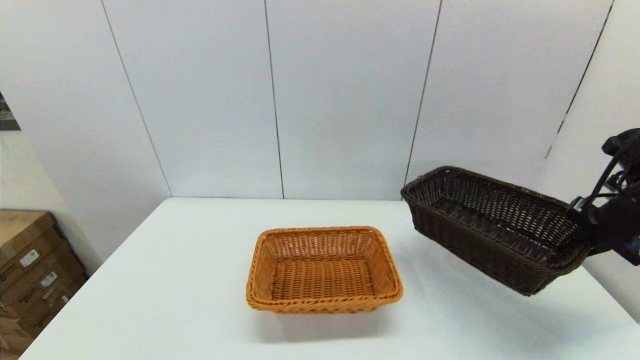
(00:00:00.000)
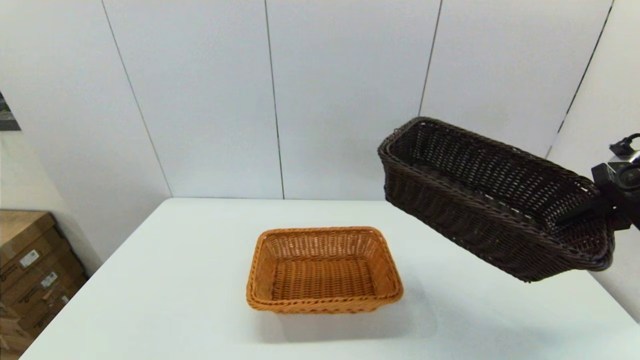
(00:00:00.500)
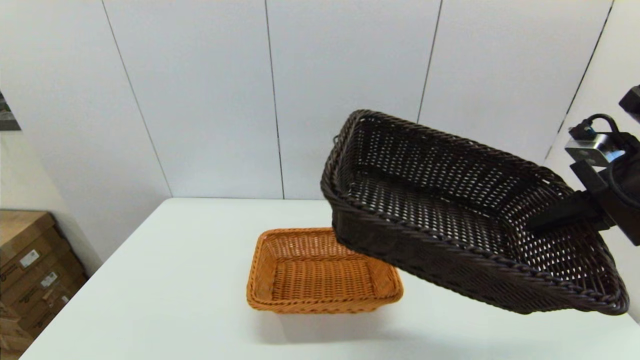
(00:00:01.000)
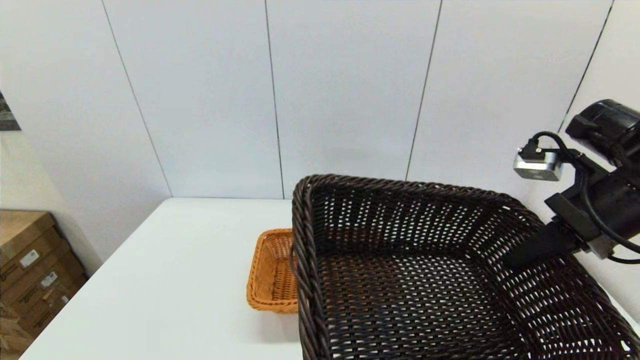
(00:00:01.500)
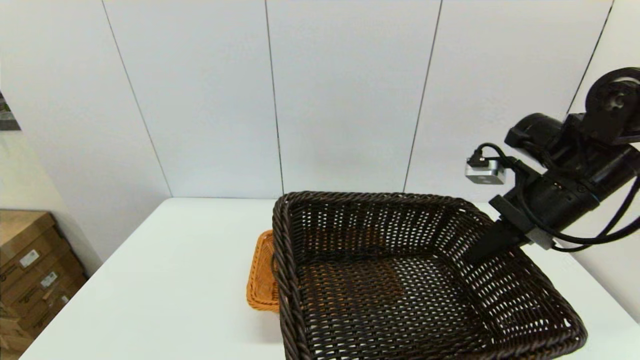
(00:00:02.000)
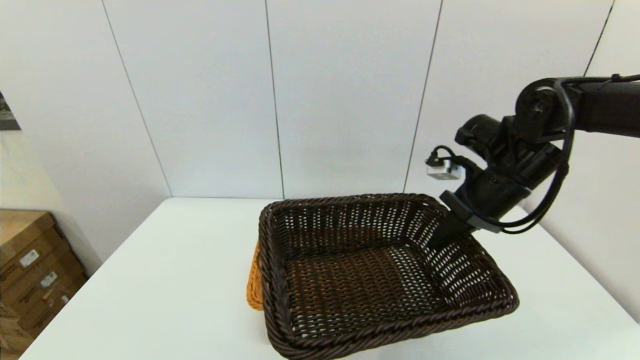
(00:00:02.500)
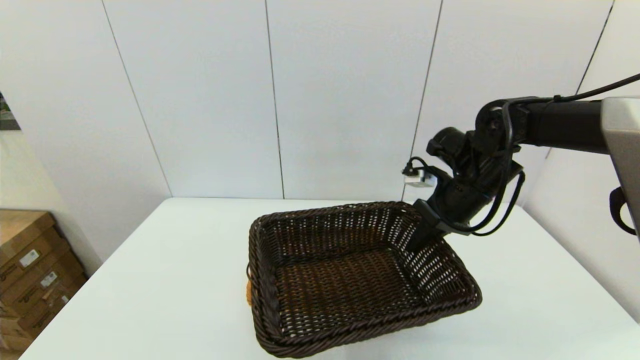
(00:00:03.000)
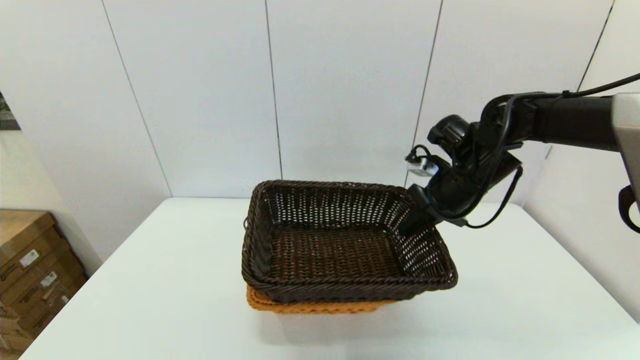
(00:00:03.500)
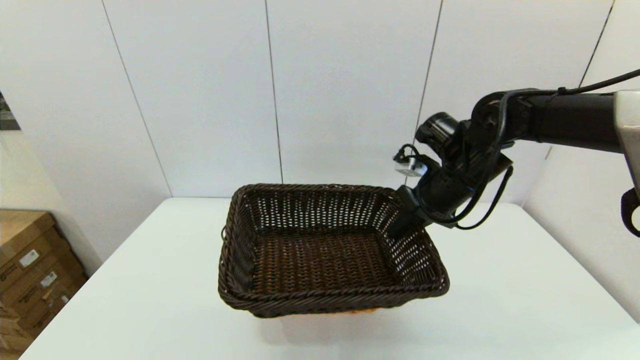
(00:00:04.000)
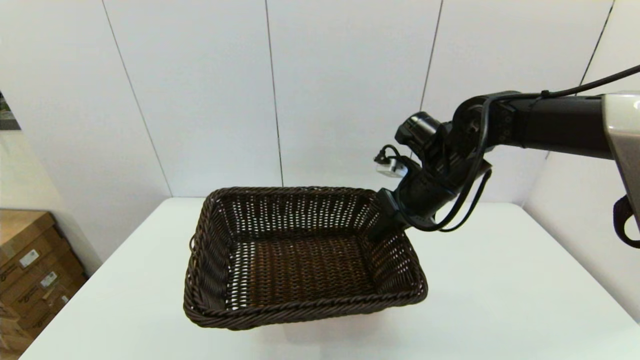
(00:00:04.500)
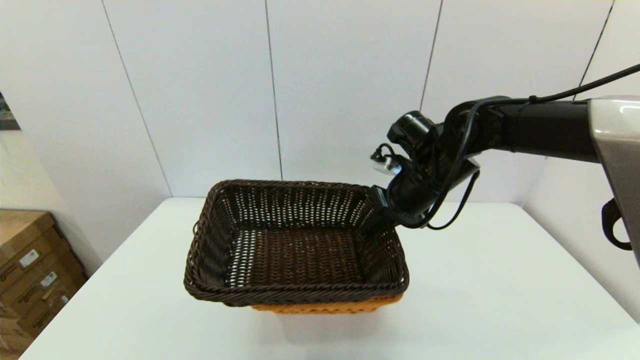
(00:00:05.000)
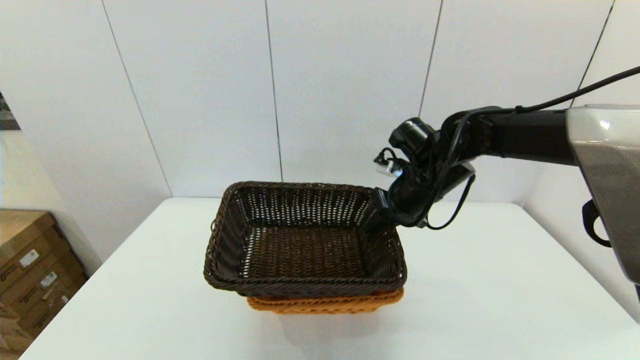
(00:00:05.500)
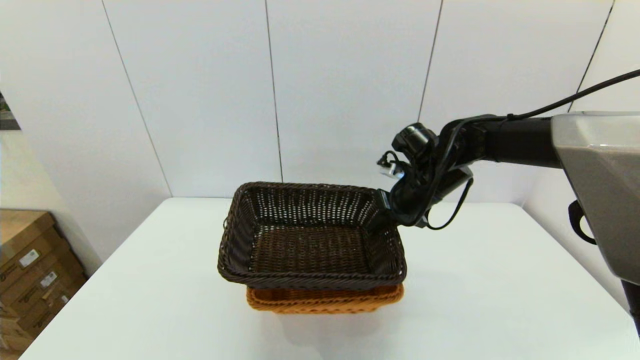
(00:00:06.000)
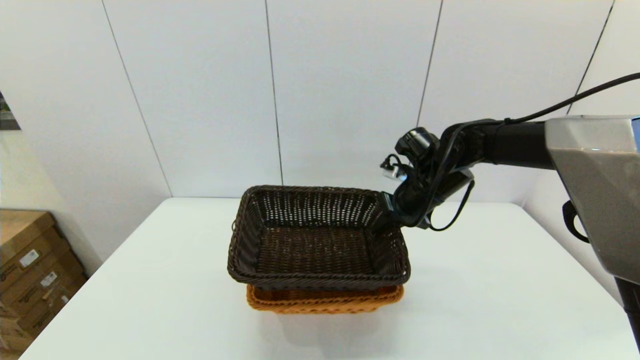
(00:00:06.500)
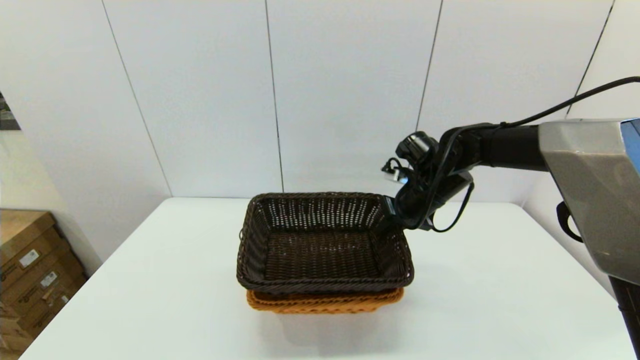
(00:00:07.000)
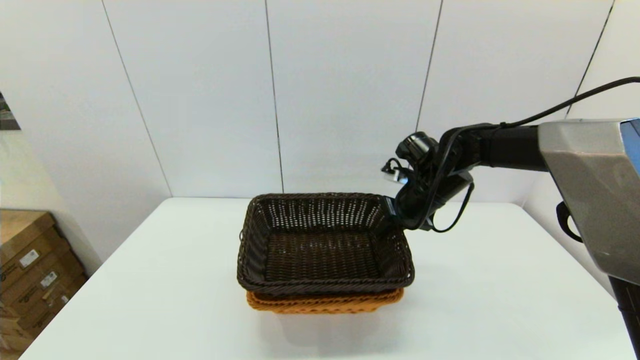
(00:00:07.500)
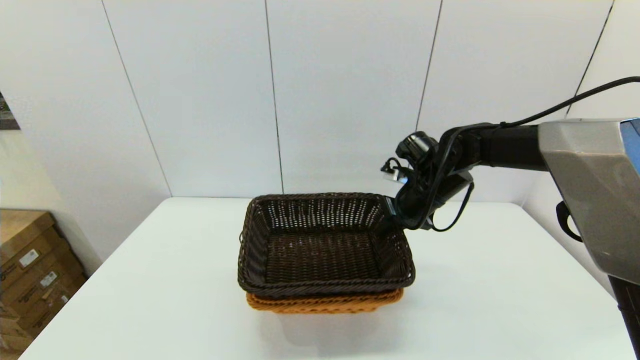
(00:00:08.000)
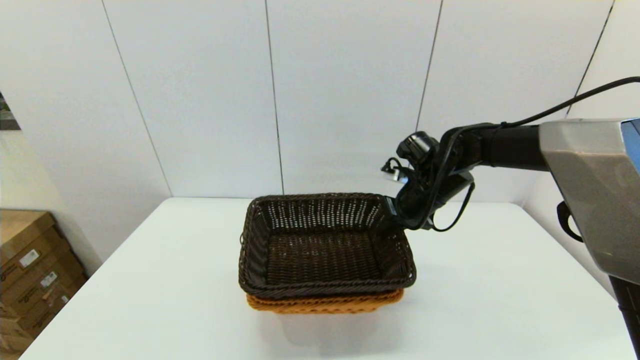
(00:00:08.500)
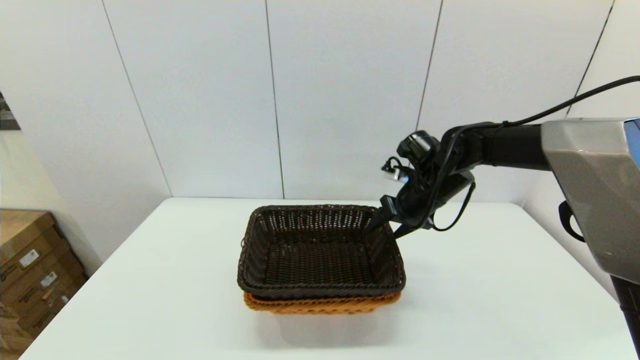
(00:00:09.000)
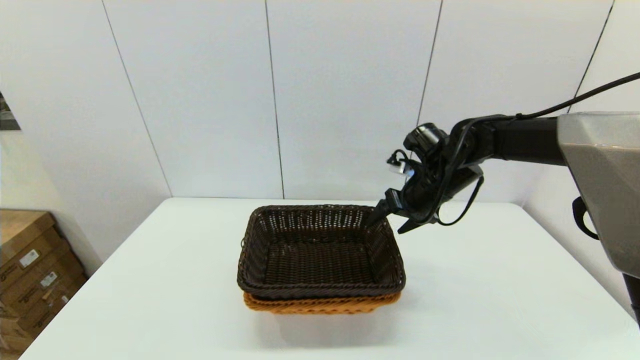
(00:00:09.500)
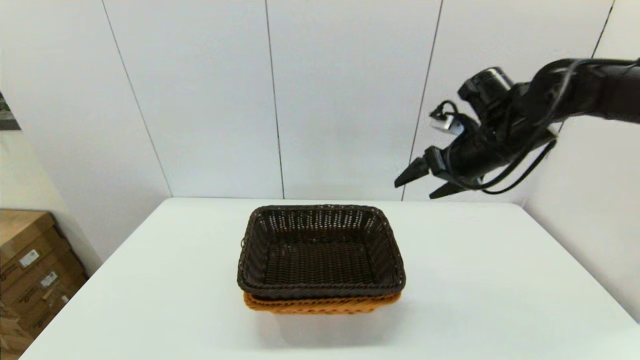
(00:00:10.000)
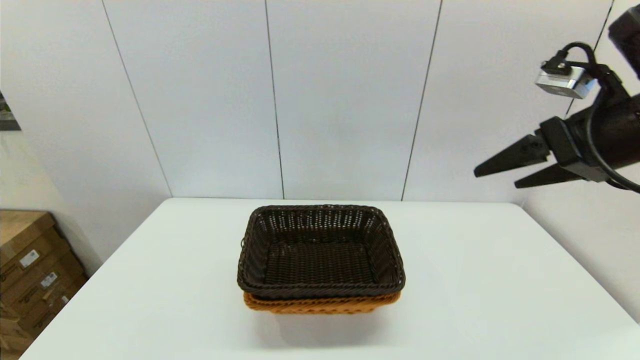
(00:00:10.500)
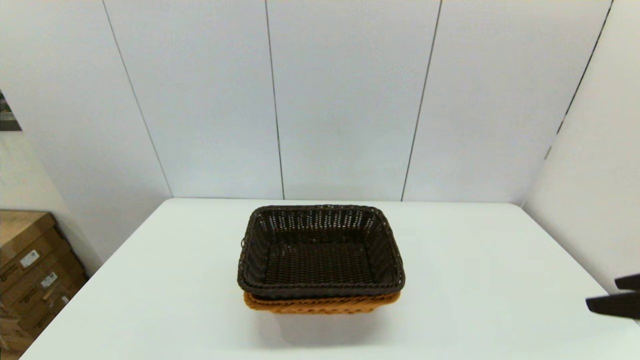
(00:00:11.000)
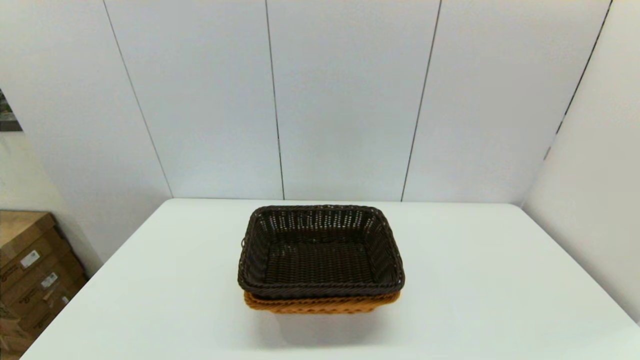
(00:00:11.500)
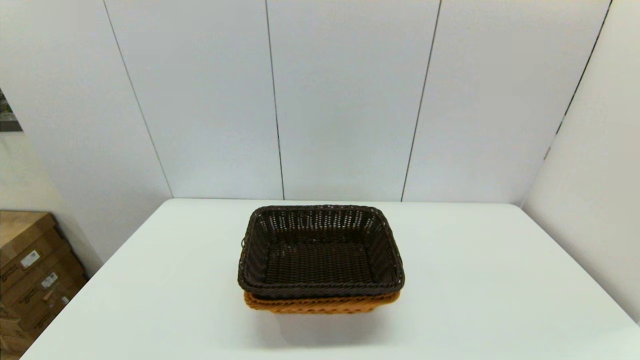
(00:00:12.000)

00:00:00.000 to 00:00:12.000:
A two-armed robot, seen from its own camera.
Task of the whole recording: stack a basket on top of another basket.
Step, 00:00:00.000 to 00:00:10.000: Place the dark basket into the light color basket with the right gripper.
00:00:00.000 to 00:00:02.000: The right gripper travels to the left by approximately 15 cm.
00:00:02.000 to 00:00:04.000: The right gripper goes some 10 cm to the left and forward.
00:00:04.000 to 00:00:06.000: The right gripper moves roughly 5 cm.
00:00:06.000 to 00:00:08.000: There are only small adjustments of the grippers.
00:00:08.000 to 00:00:10.000: The right gripper goes about 15 cm upward and to the right, and opens up.
00:00:10.000 to 00:00:12.000: The right gripper goes some 40 cm backward.

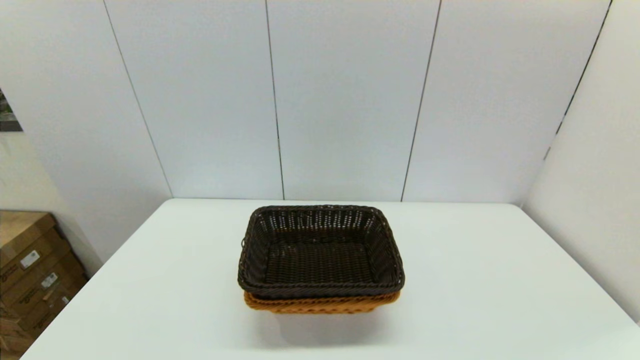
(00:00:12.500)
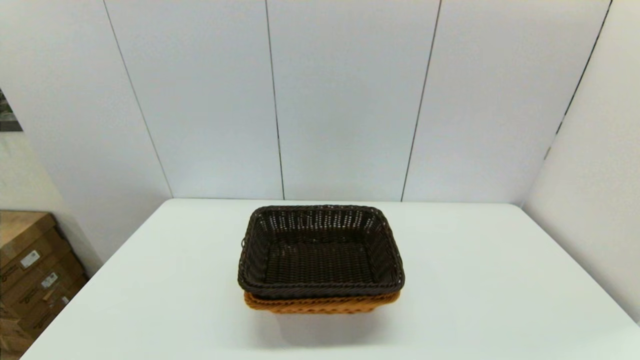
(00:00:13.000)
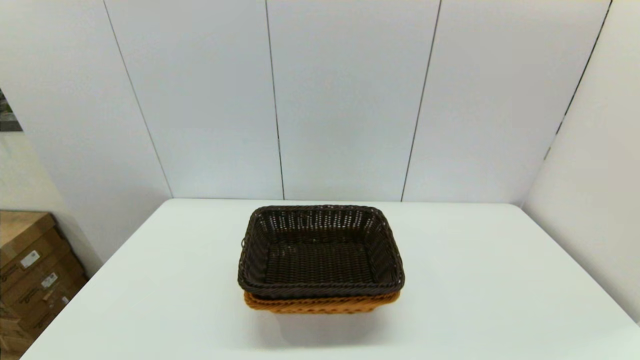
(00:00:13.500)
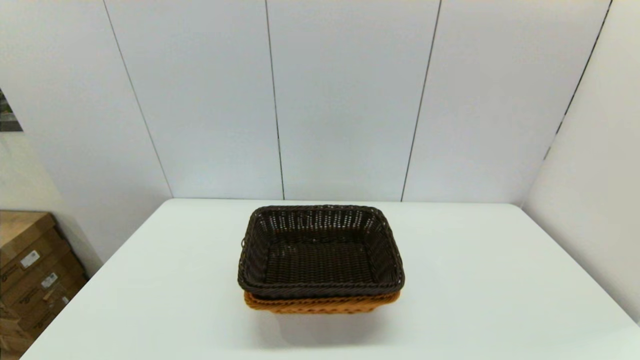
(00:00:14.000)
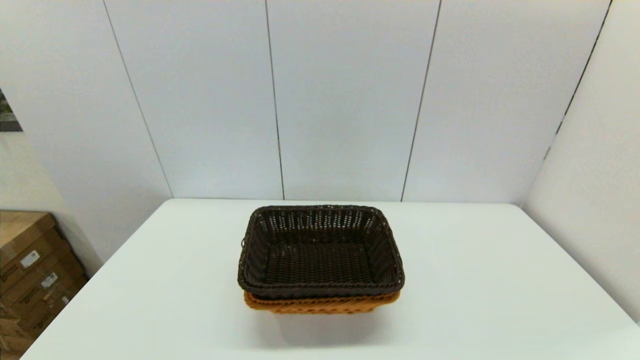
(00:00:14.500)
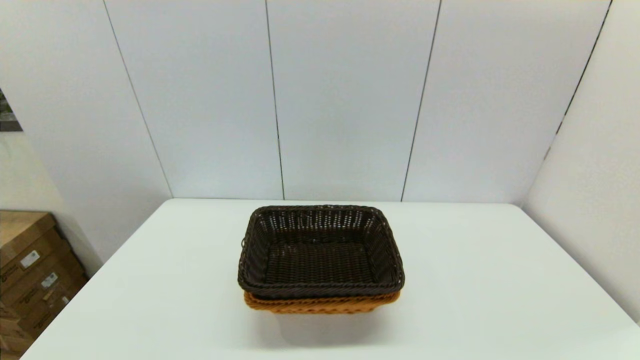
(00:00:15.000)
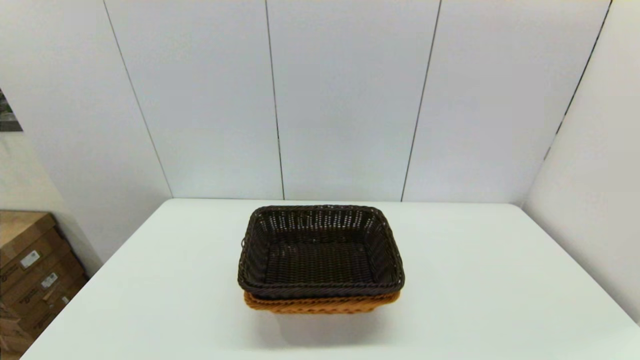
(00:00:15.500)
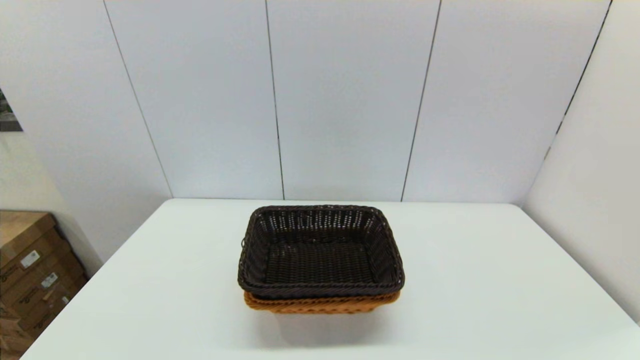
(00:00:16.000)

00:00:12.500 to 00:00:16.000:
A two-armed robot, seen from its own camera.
Task of the whole recording: stack a basket on top of another basket.
00:00:14.500 to 00:00:16.000: The two grippers keep their place.

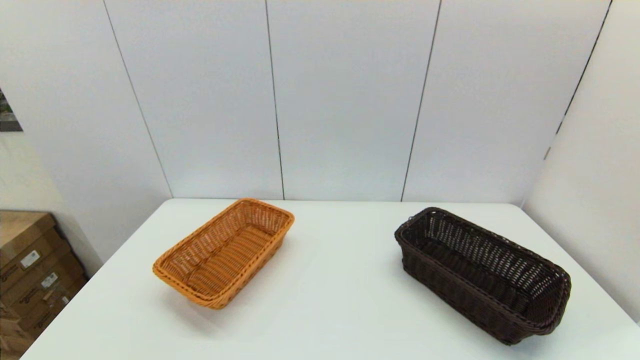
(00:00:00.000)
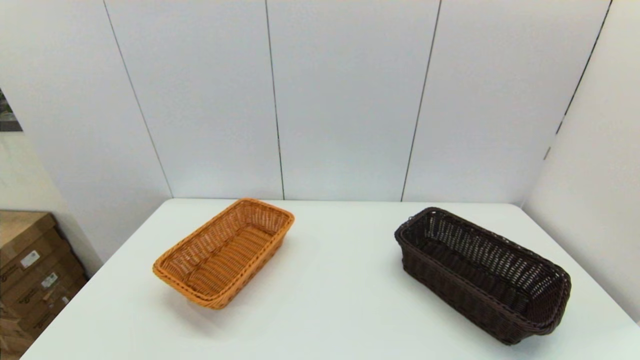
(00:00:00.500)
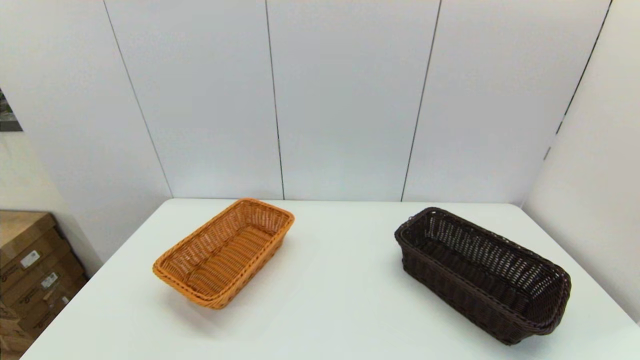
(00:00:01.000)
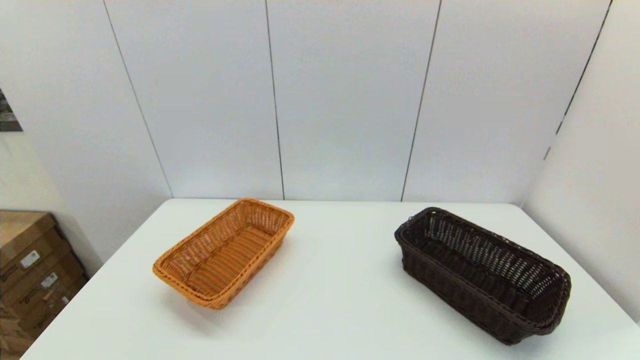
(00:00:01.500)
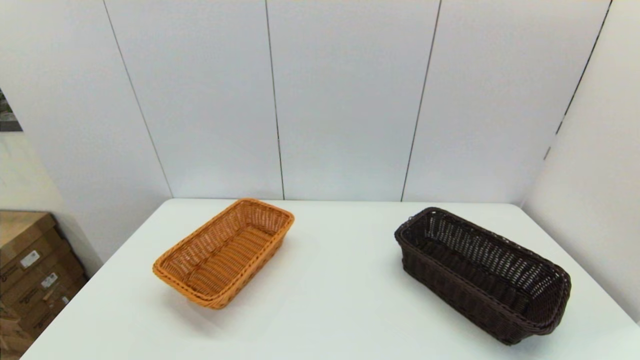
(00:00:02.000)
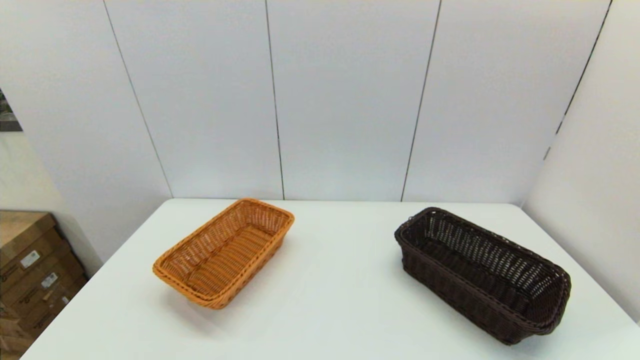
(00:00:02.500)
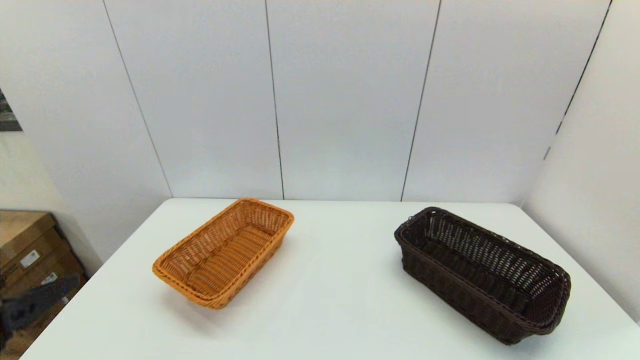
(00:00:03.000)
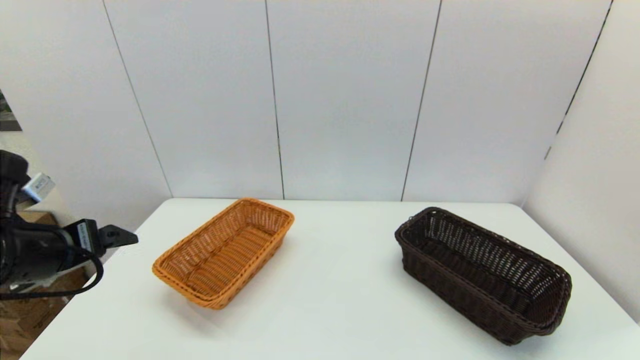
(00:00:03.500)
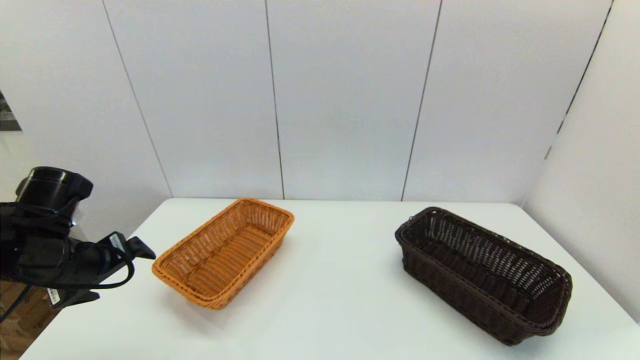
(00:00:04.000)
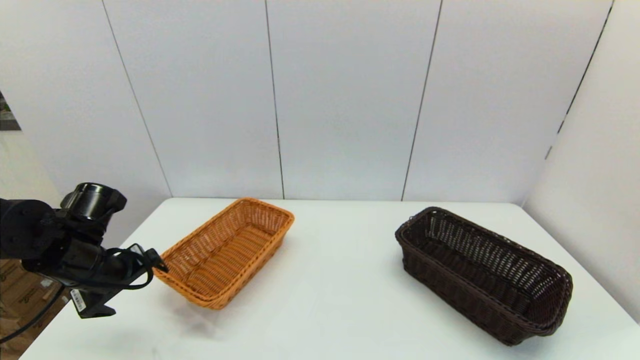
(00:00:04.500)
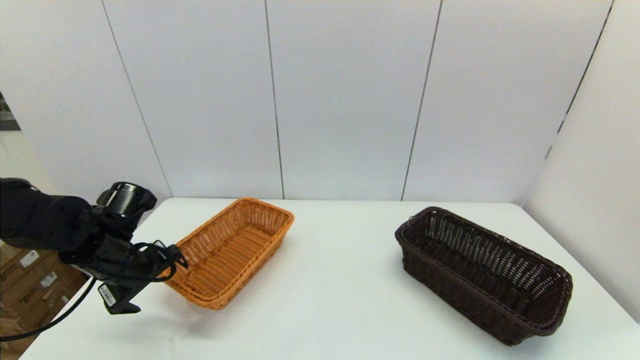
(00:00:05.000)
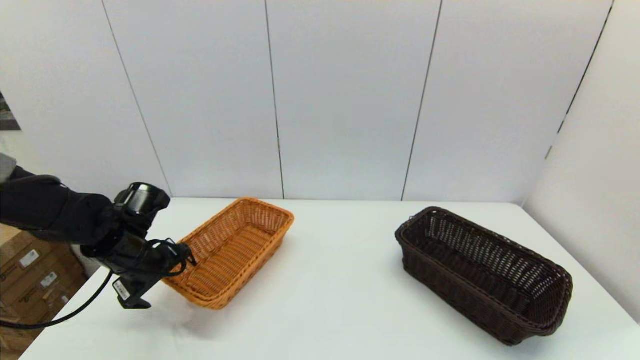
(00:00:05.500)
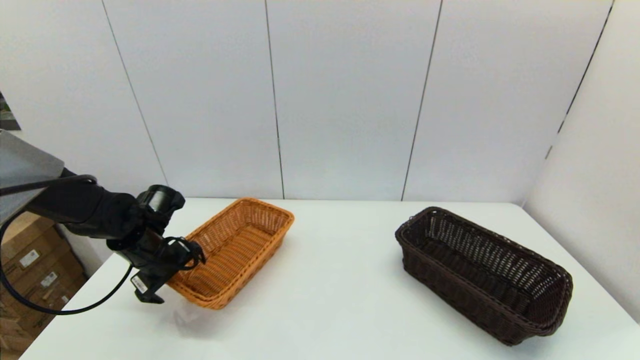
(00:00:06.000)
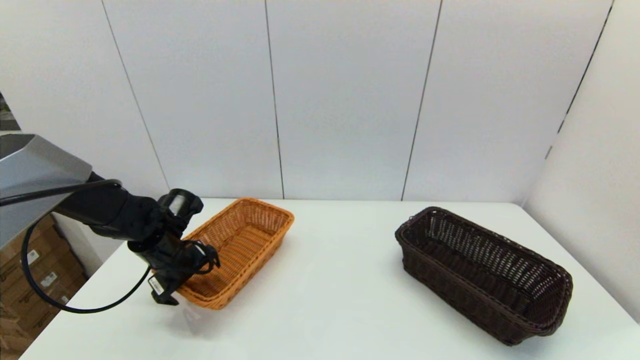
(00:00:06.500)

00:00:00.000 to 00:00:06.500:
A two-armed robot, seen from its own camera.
Task of the whole recording: stack a basket on top of another basket.
00:00:00.000 to 00:00:02.000: The two grippers keep their place.
00:00:02.000 to 00:00:04.500: The left gripper goes roughly 30 cm forward.
00:00:04.500 to 00:00:06.500: The left gripper goes roughly 10 cm forward, downward and to the right.
